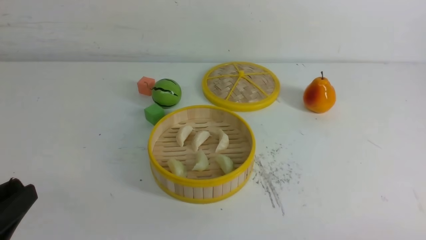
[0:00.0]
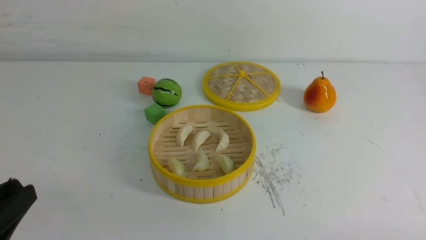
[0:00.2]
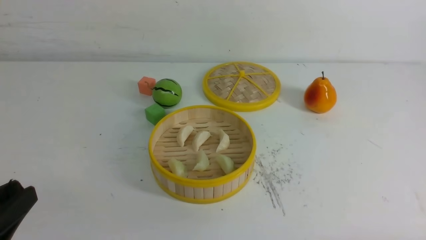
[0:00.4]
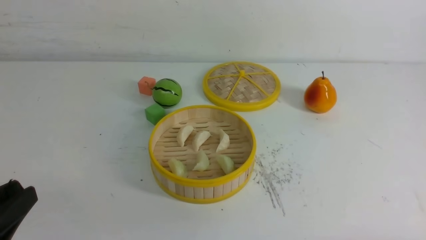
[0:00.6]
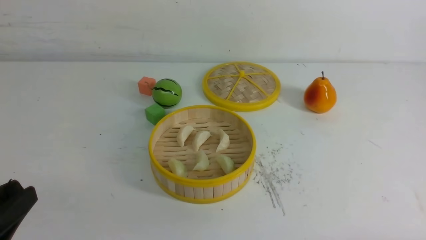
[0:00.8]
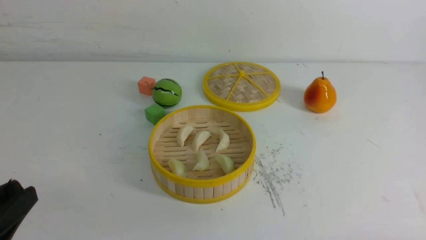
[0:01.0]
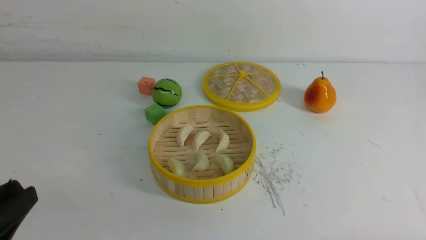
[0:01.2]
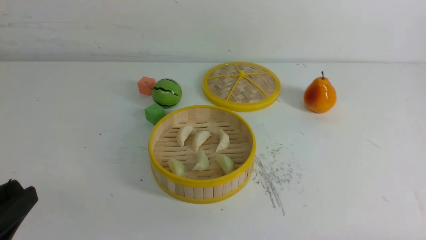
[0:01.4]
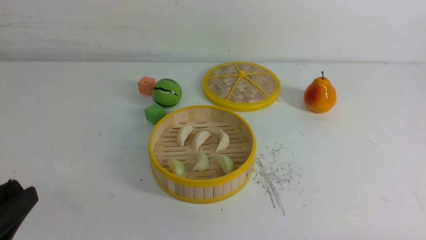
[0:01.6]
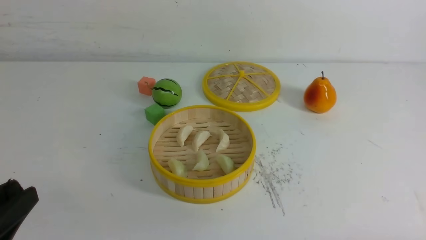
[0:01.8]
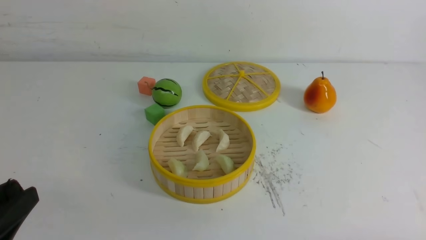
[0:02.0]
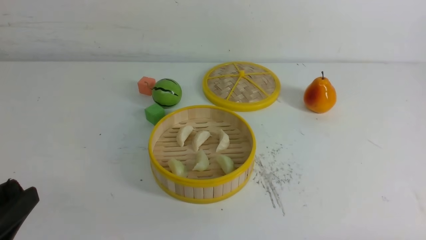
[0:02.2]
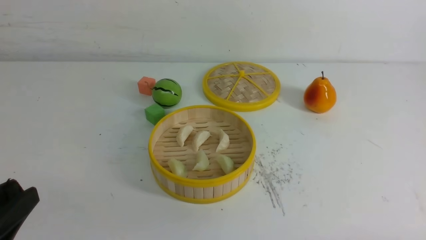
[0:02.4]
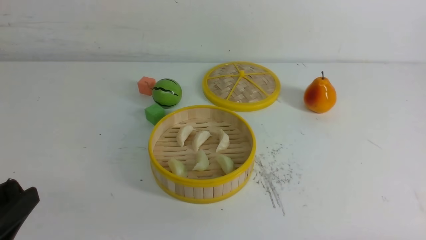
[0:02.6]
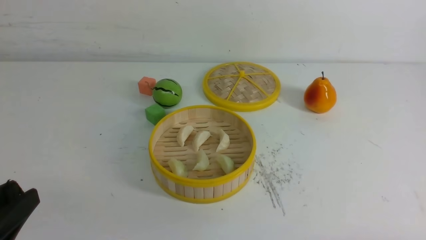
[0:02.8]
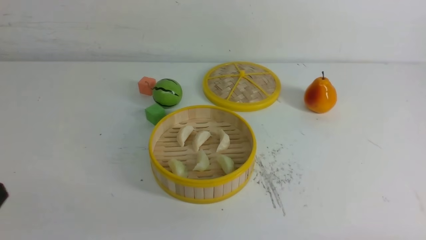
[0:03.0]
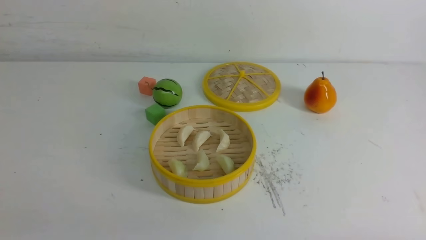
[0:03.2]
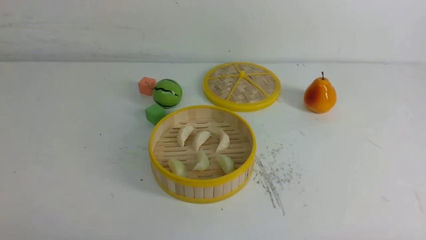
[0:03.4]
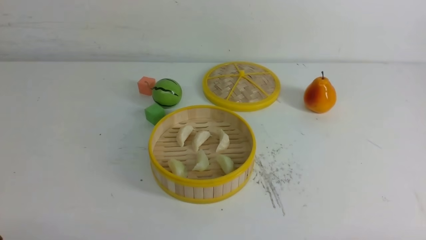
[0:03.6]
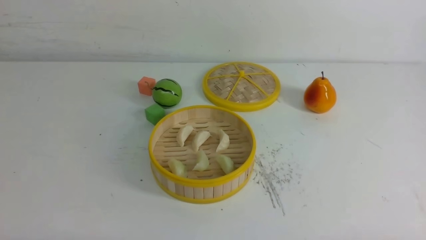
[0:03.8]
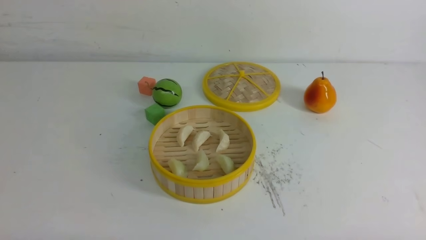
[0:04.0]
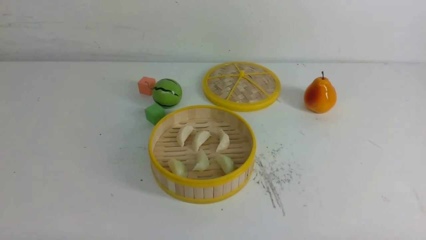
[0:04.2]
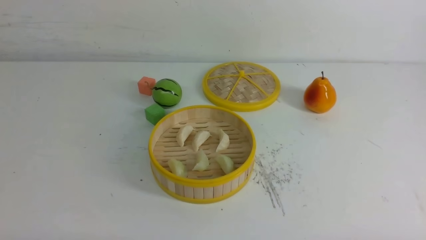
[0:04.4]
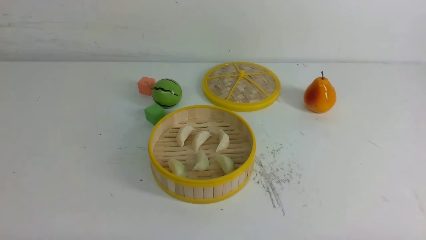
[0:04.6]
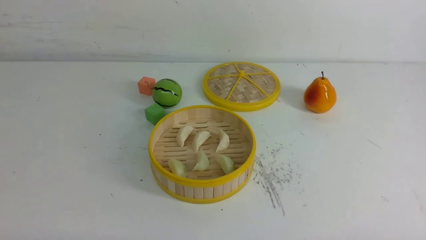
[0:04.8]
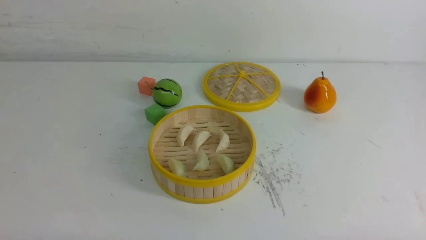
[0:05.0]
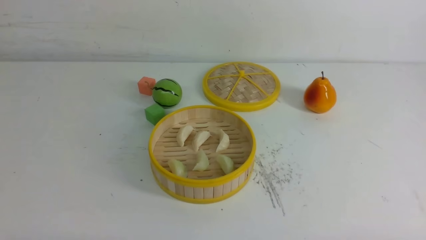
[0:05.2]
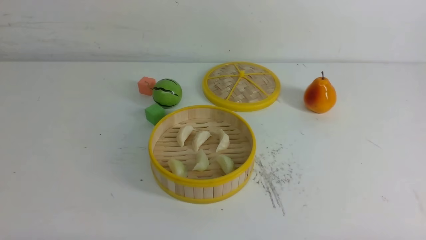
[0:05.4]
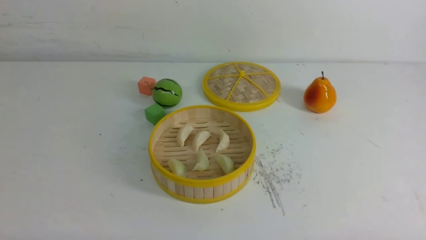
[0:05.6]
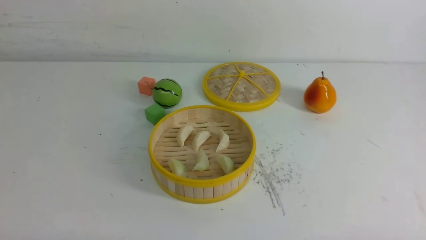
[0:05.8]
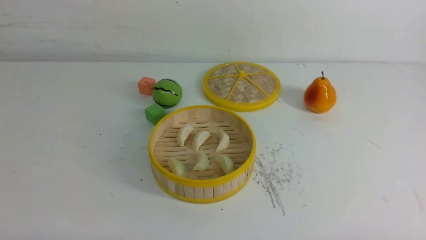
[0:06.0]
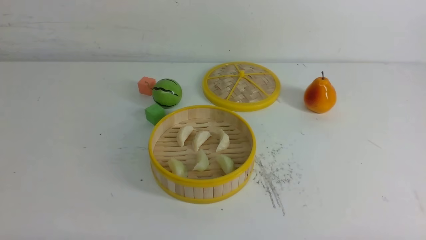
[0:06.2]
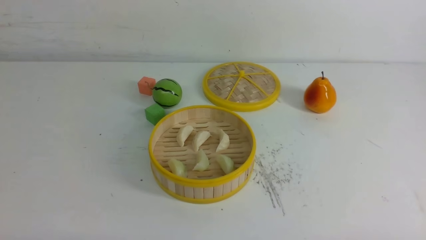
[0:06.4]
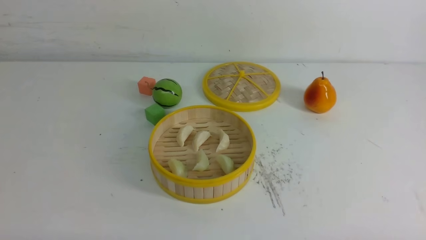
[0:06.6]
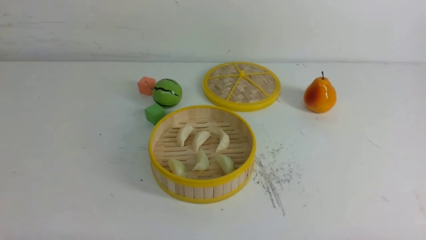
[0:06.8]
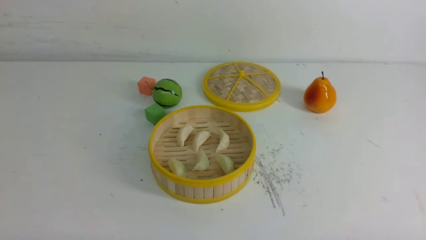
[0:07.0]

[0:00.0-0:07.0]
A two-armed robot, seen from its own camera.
Task of the whole recording: put the dumplings into the steamer on the white table.
0:01.4 to 0:02.8: Neither gripper changes place.
0:02.8 to 0:04.2: The left gripper heads downward, covering some 10 cm, and closes its fingers.
0:04.2 to 0:07.0: Neither gripper changes place.

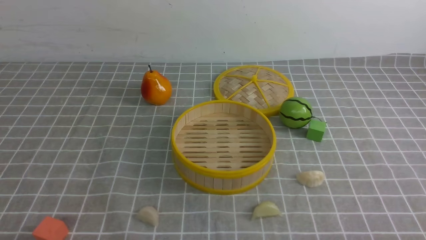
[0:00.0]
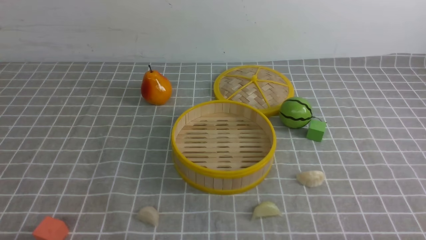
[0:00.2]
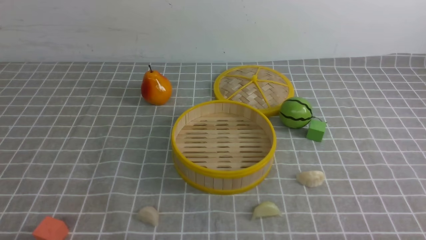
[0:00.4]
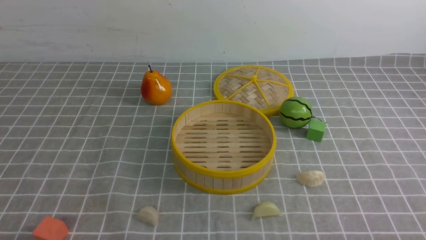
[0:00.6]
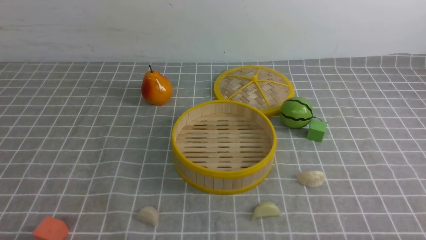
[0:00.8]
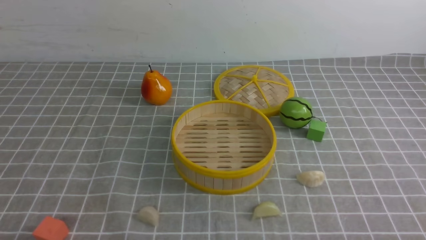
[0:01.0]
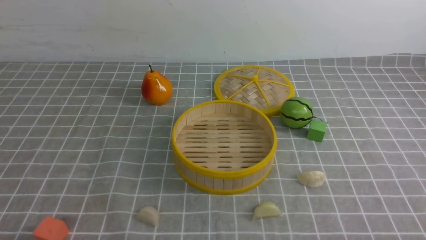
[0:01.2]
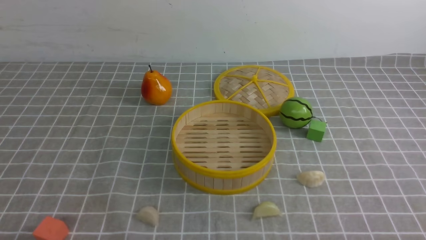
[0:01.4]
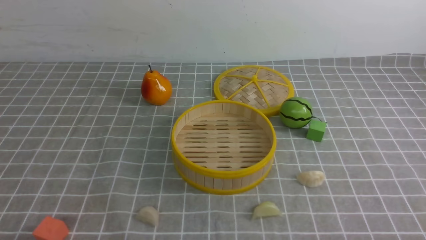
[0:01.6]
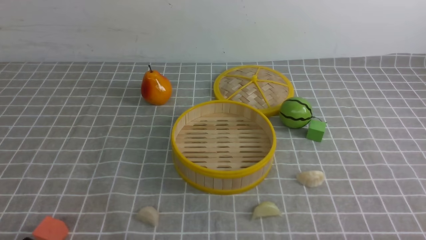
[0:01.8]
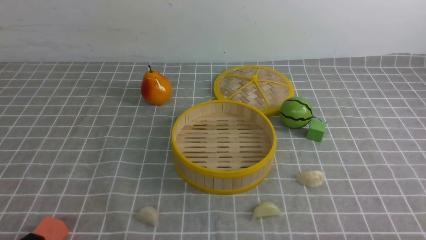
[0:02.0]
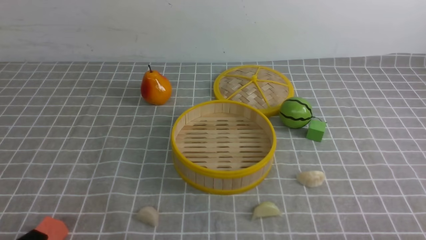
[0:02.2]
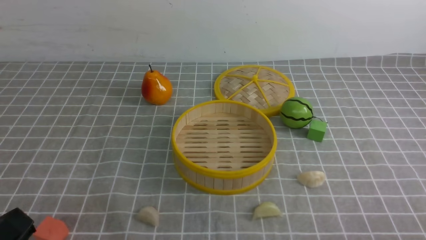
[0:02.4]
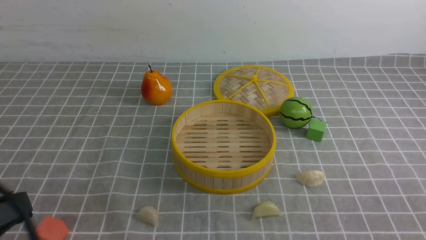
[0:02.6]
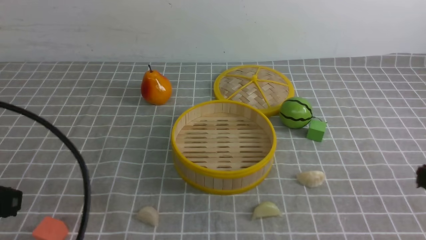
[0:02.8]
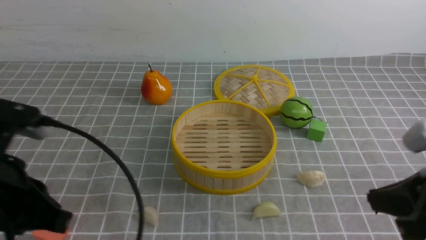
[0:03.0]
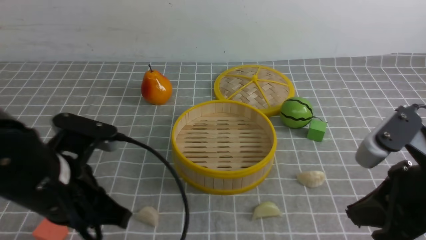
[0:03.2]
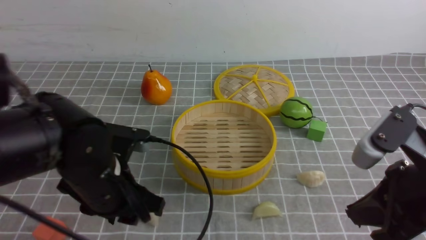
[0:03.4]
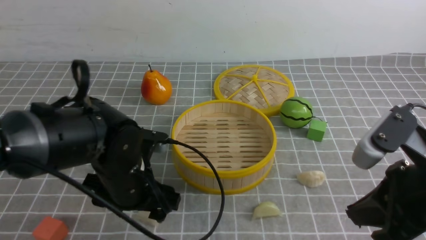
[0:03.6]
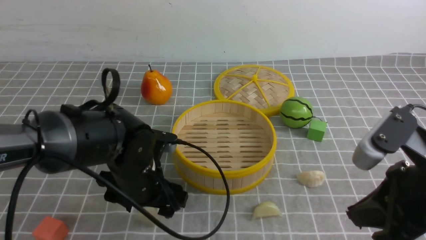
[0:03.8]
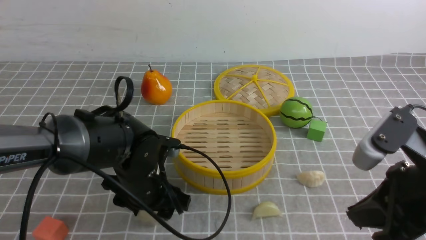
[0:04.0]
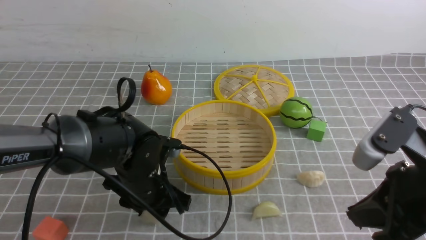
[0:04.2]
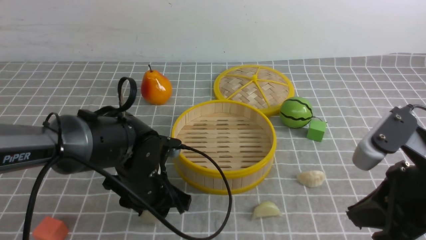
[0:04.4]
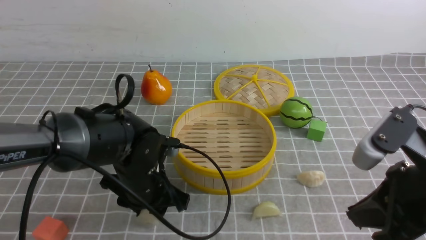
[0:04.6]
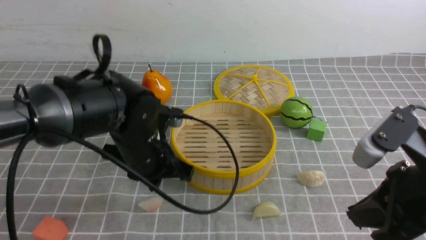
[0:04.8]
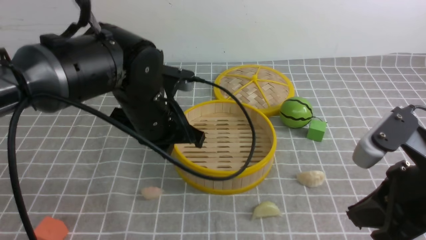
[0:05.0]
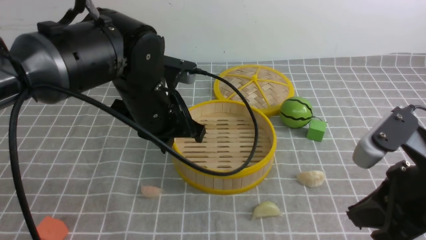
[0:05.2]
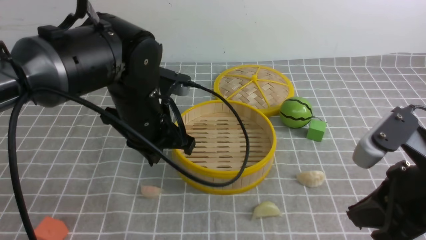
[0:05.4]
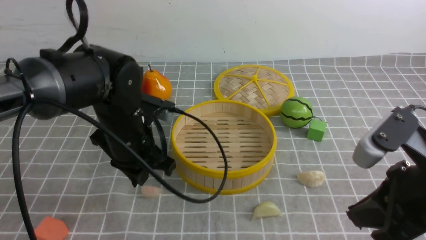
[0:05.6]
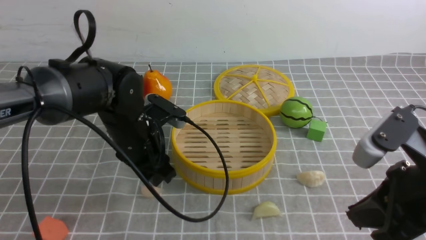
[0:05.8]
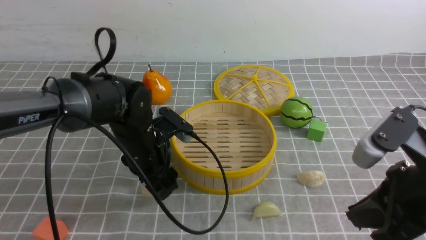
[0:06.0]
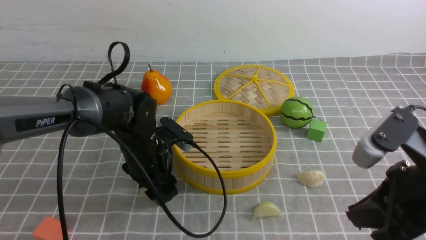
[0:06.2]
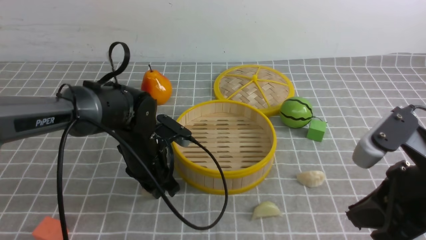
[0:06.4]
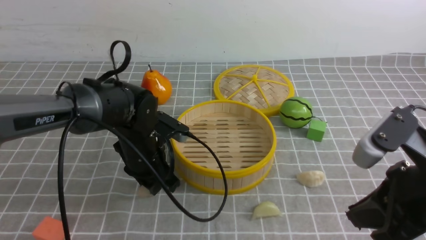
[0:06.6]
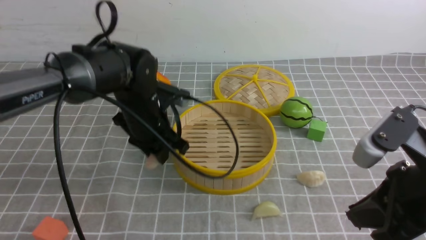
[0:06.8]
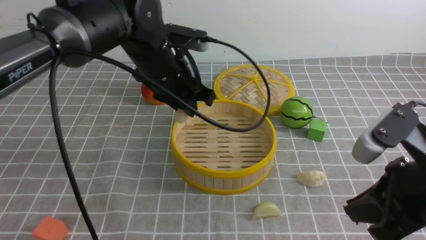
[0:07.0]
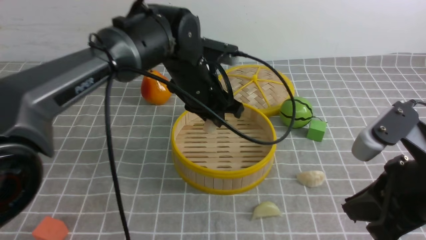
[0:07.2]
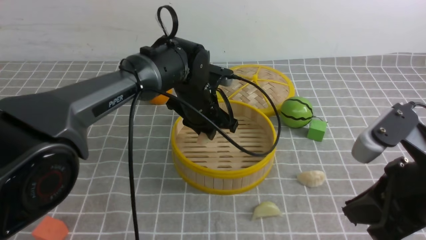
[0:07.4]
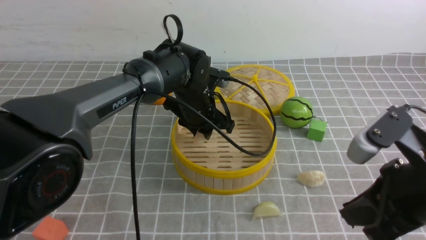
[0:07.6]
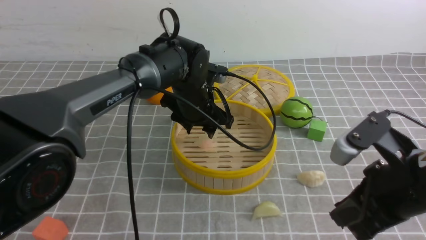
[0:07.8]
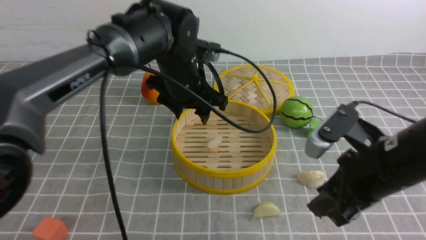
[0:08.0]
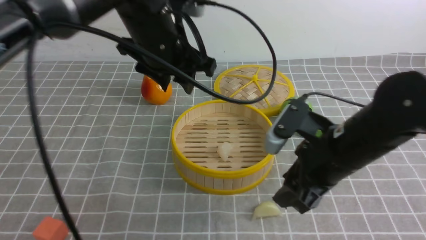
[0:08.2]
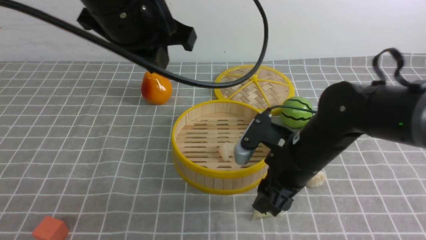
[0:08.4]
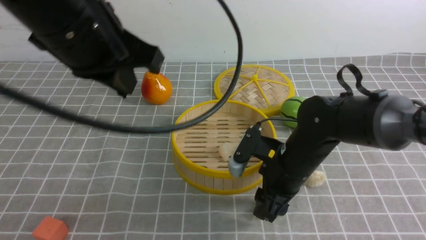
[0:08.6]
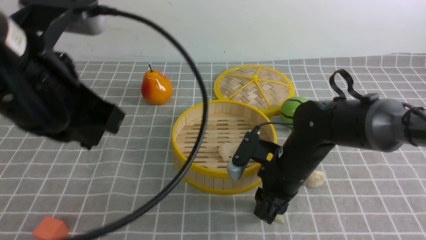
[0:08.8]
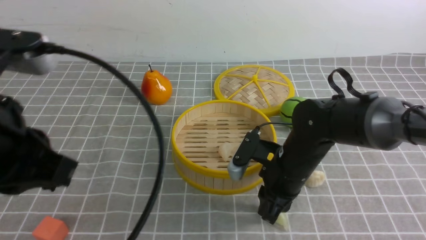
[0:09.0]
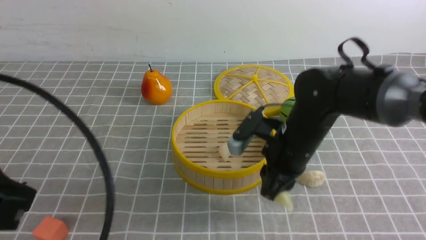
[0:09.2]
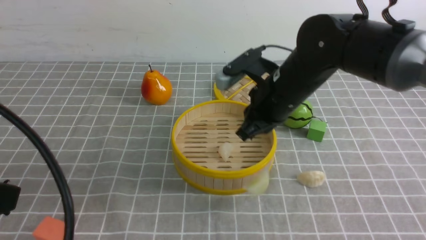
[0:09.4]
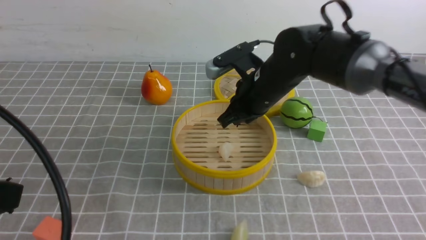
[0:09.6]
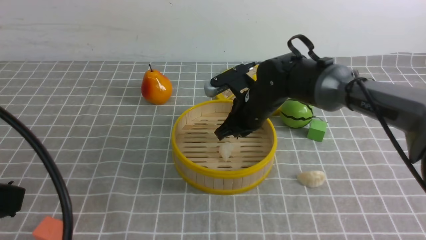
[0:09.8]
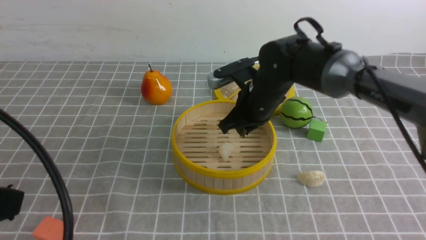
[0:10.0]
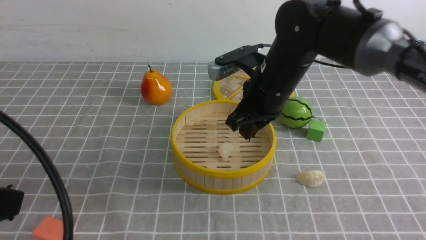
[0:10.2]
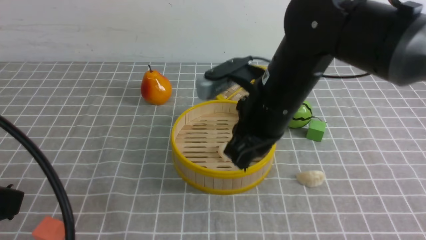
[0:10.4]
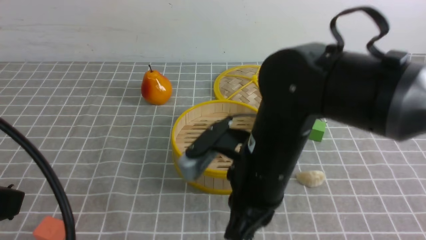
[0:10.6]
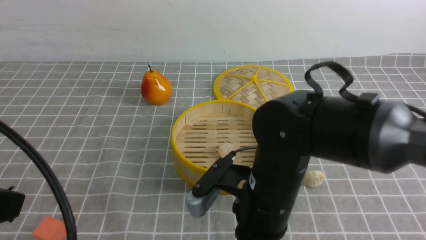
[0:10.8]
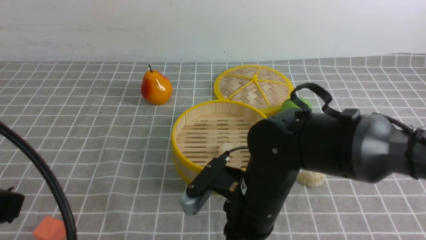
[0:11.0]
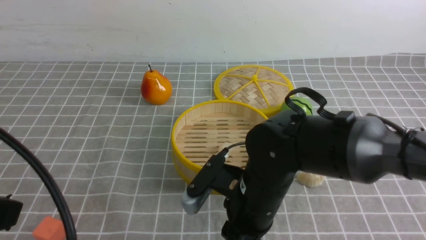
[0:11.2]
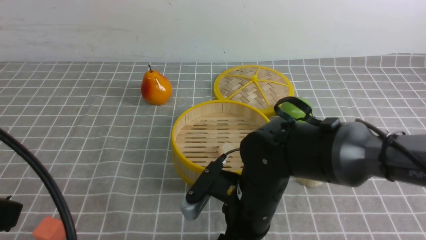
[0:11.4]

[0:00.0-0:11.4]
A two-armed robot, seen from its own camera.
Task of the whole recording: put the dumplings into the steamer on the table with the grey tablecloth.
Step, 0:00.0 to 0:06.6: use the left arm to grab a dumpling.
Step, 0:06.8 to 0:07.8: use the left arm to put the dumpling into the steamer.
0:01.4 to 0:02.8: The left gripper shifts roughly 15 cm upward and forward, and closes its fingers.
0:02.8 to 0:04.2: The left gripper travels forward, downward and to the right by roughly 25 cm, and opens. The right gripper shifts some 10 cm to the left and forward.
0:04.2 to 0:05.6: The left gripper shifts approximately 5 cm upward, and closes.
0:05.6 to 0:07.2: The left gripper travels forward and to the right by roughly 10 cm, goes downward and returns, about 5 cm each way, and opens, then closes once more.
0:07.2 to 0:08.6: The left gripper shifts roughly 25 cm backward, upward and to the left, and opens, then closes again; the right gripper travels forward, downward and to the left by approximately 20 cm, and opens.
0:08.6 to 0:10.0: The left gripper heads backward and to the left, covering approximately 20 cm; the right gripper heads forward and upward, covering about 10 cm, and closes its fingers.
0:10.0 to 0:11.4: The right gripper moves backward and downward, approximately 15 cm, and opens up.
